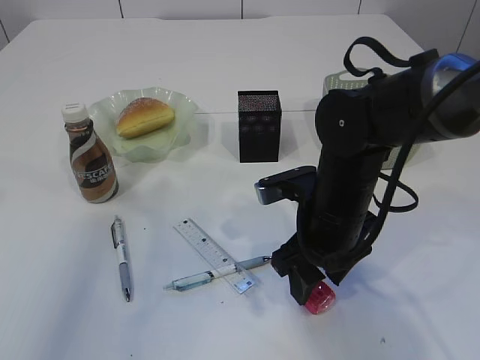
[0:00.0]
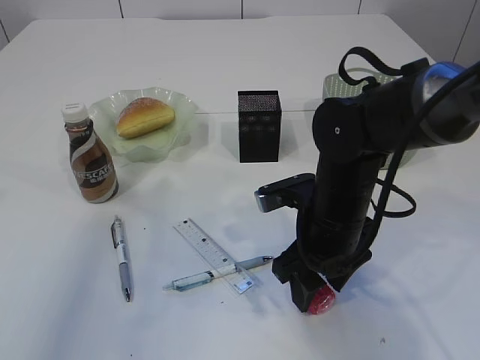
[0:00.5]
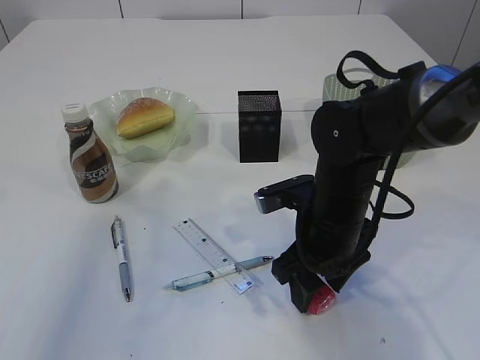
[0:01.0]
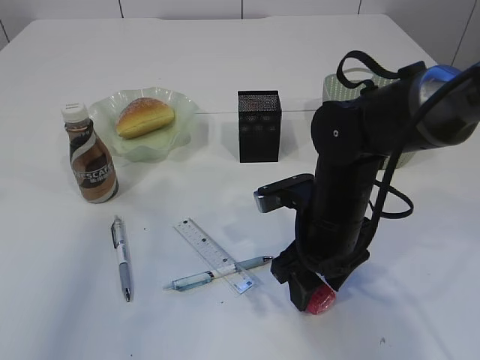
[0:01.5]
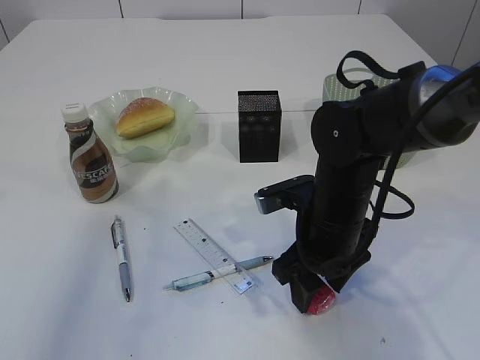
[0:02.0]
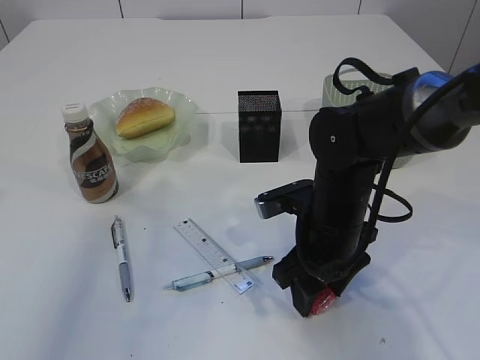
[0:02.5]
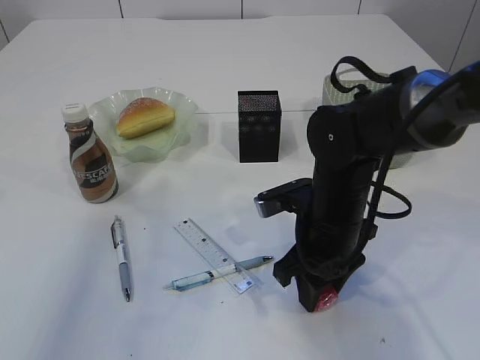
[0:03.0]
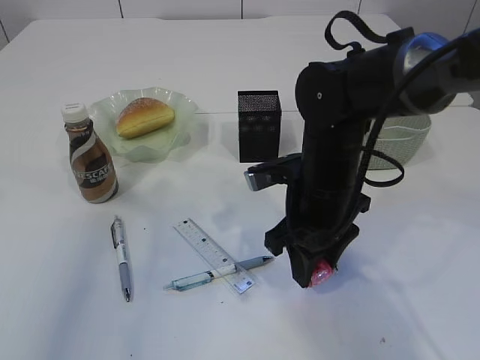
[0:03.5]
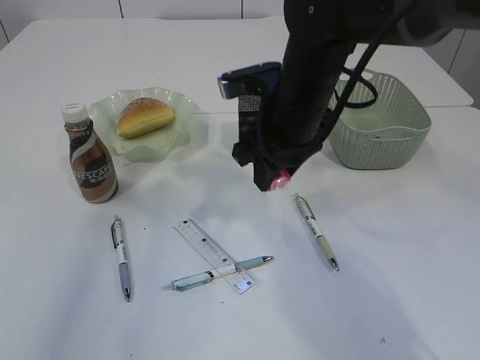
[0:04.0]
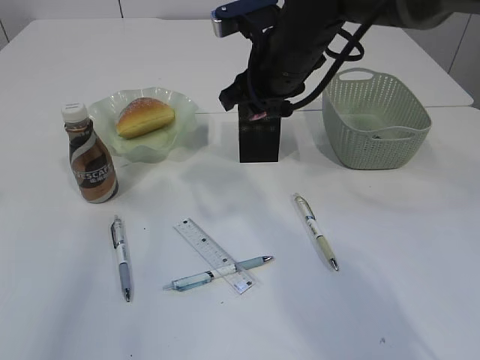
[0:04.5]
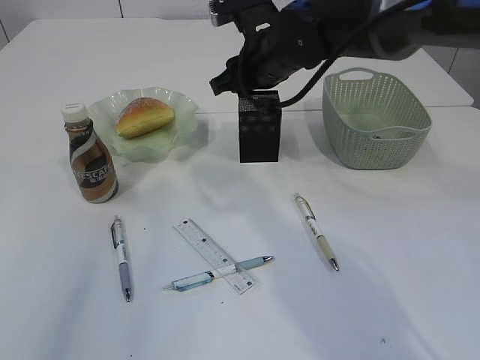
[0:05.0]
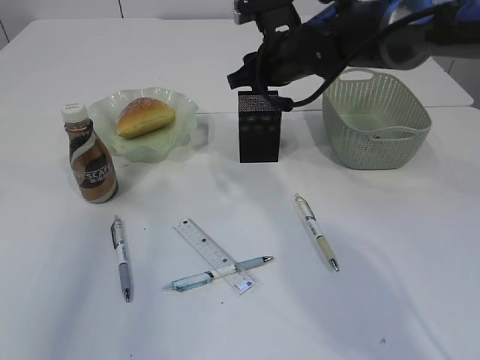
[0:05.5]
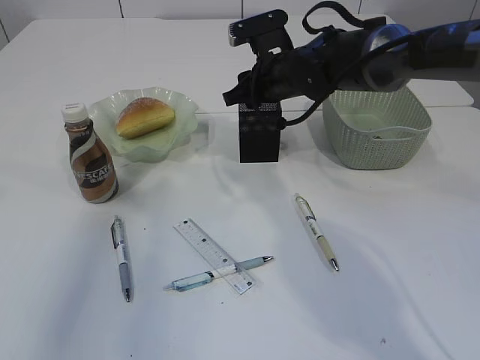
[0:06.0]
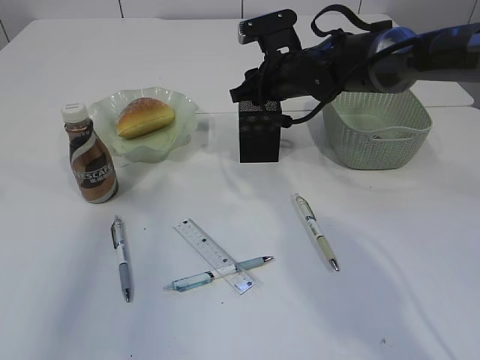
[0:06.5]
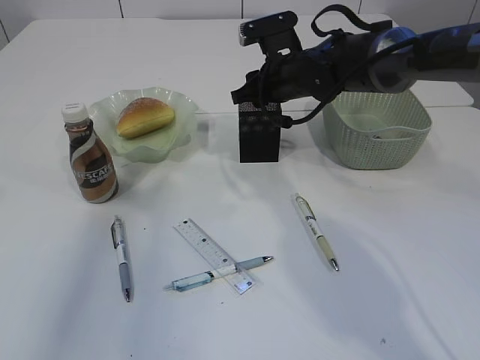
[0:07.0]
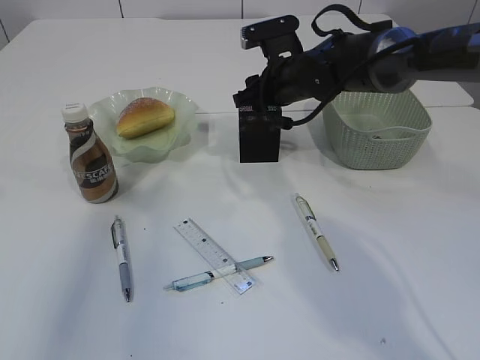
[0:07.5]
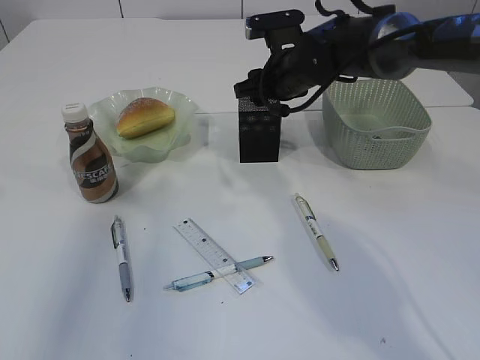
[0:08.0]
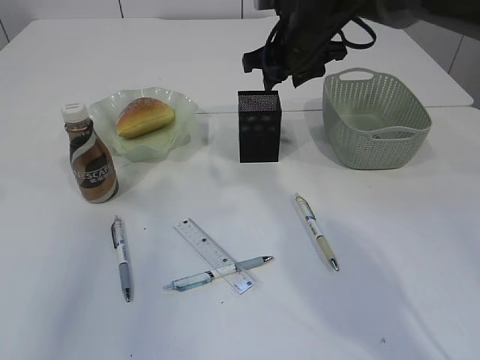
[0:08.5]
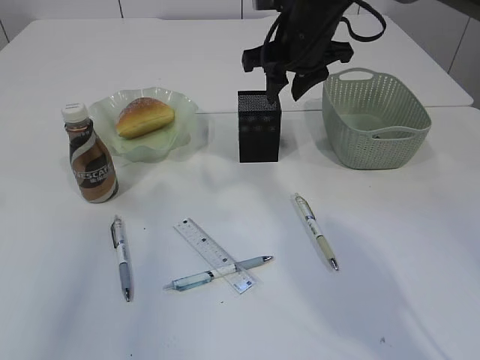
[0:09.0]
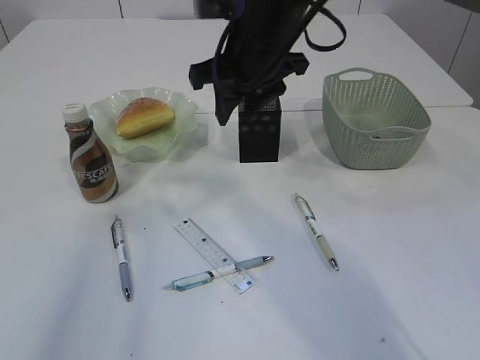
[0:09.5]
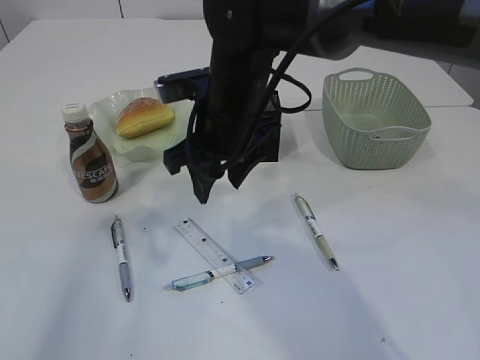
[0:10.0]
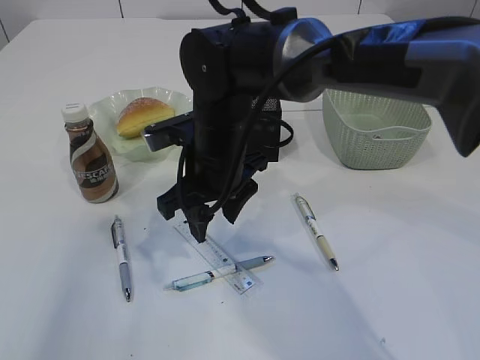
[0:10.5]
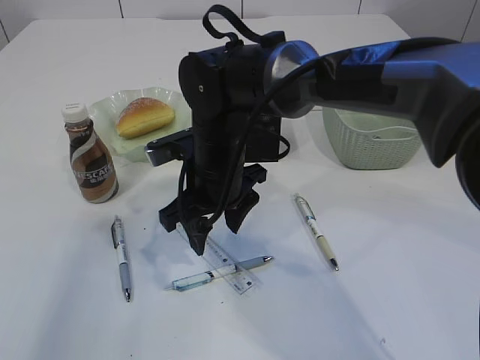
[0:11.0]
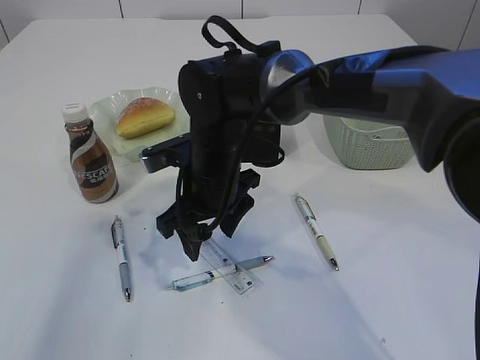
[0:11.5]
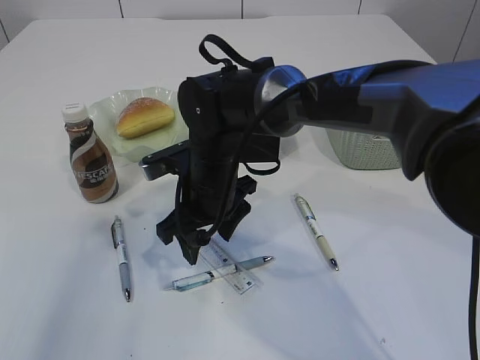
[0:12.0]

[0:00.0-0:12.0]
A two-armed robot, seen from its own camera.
Step, 0:00.0 to 0:03.5: Pick up the blue pencil sharpener.
Step, 0:04.0 to 0:08.5: Place the blue pencil sharpener into the pen holder.
0:00.0 to 0:02.0: The two grippers keep their place.
0:02.0 to 0:04.0: The right gripper heads upward and forward, covering approximately 10 cm, and closes up.
0:04.0 to 0:06.0: The right gripper goes roughly 10 cm forward.
0:06.0 to 0:08.0: The grippers move only a little.
0:08.0 to 0:10.0: The right gripper moves backward and to the left, roughly 15 cm.
0:10.0 to 0:12.0: The right gripper is displaced downward by some 10 cm.

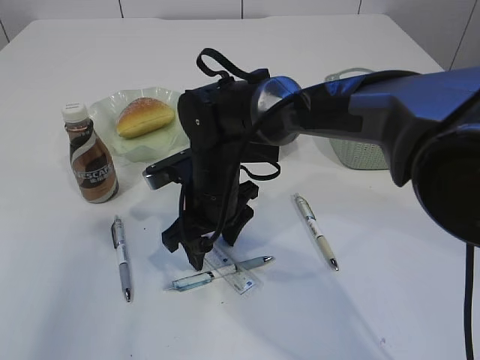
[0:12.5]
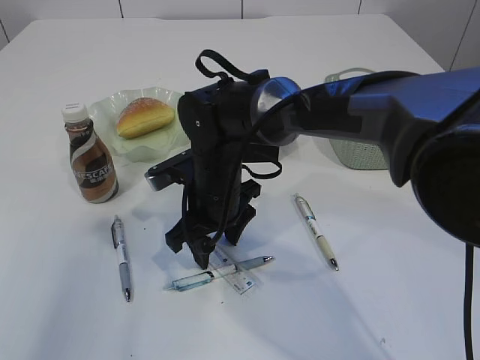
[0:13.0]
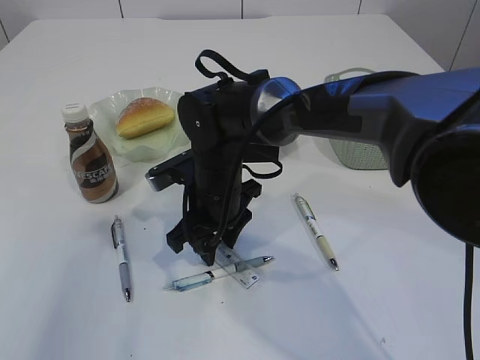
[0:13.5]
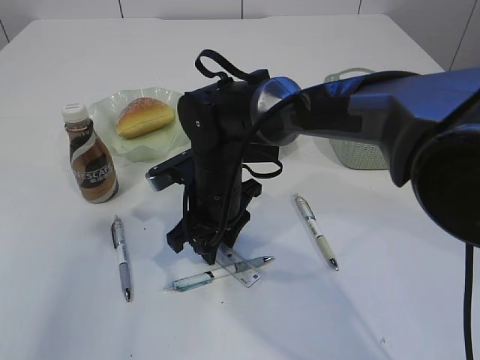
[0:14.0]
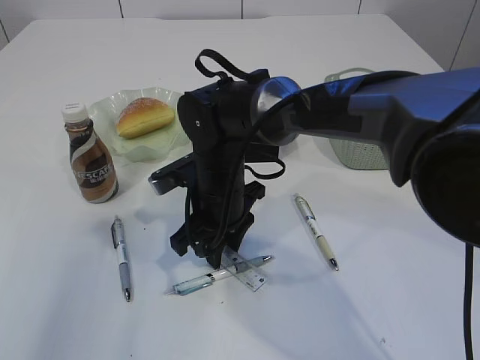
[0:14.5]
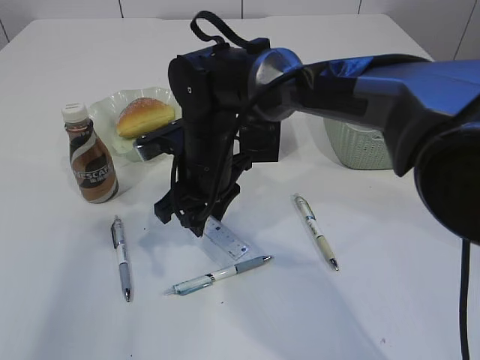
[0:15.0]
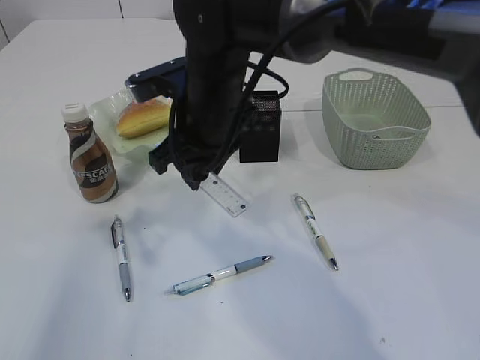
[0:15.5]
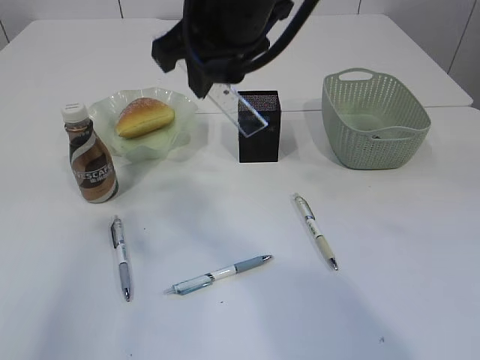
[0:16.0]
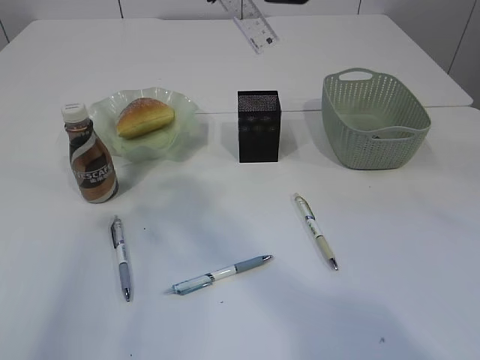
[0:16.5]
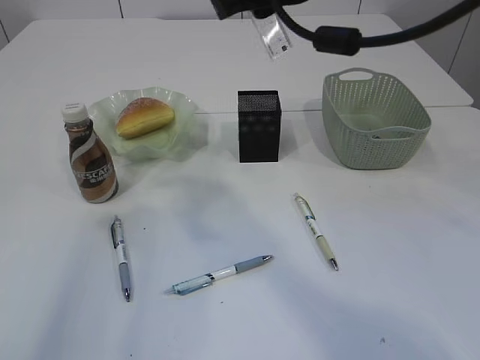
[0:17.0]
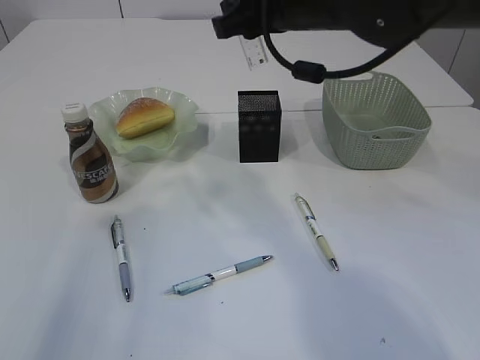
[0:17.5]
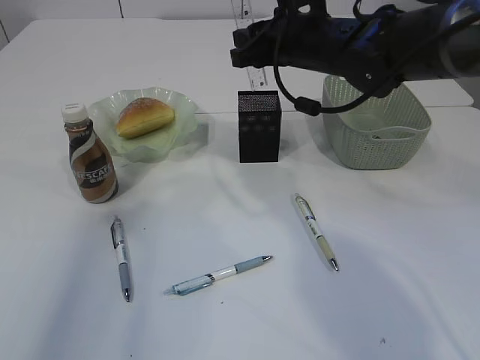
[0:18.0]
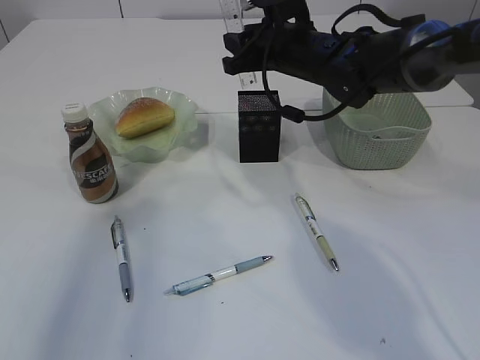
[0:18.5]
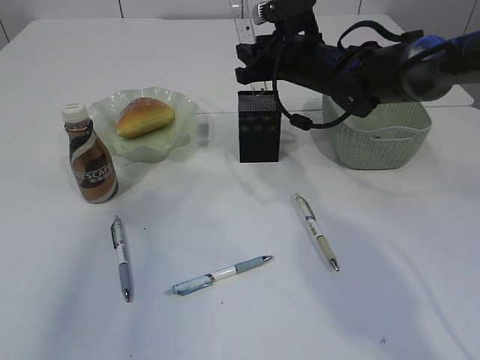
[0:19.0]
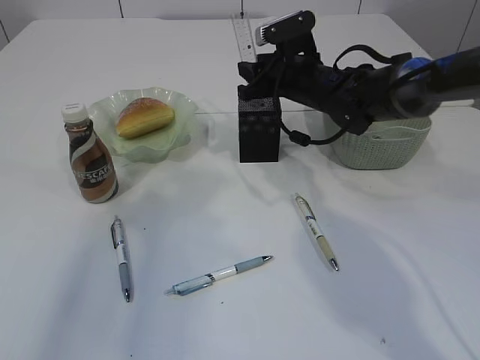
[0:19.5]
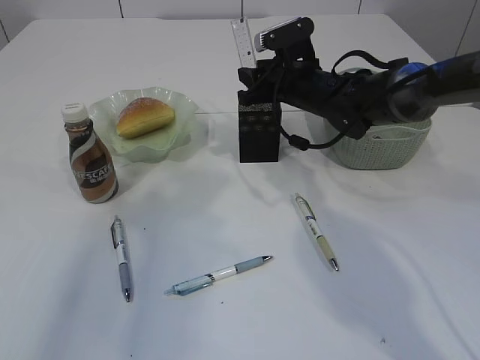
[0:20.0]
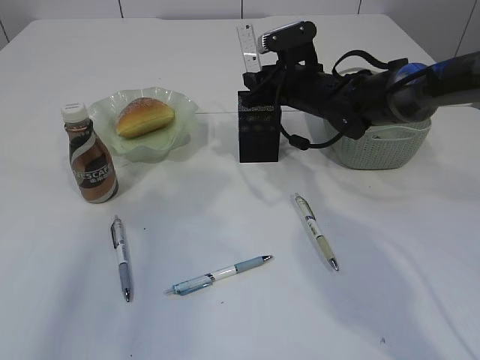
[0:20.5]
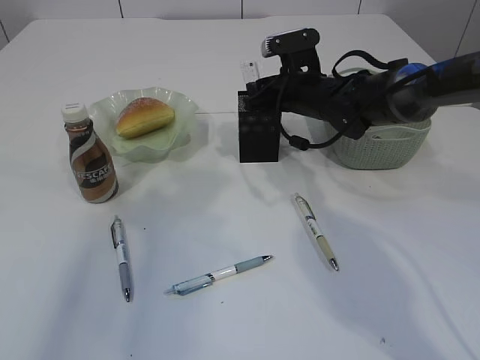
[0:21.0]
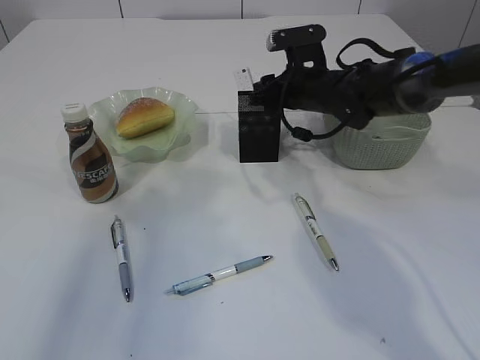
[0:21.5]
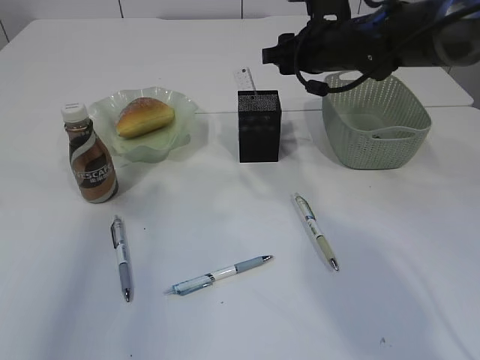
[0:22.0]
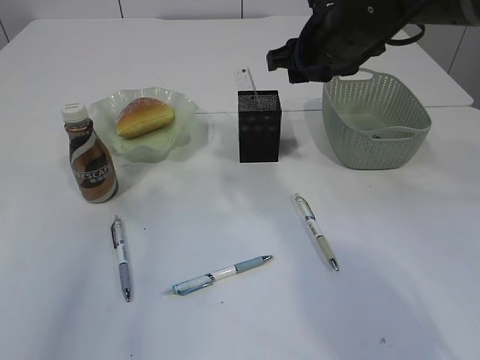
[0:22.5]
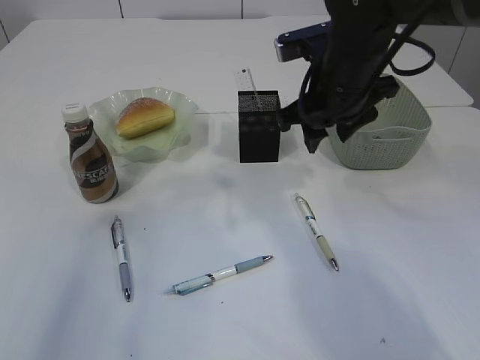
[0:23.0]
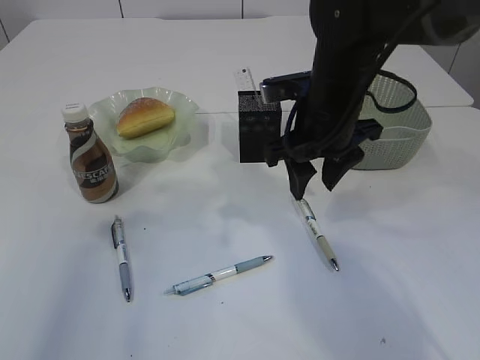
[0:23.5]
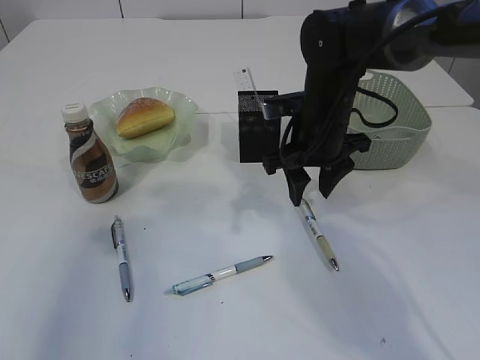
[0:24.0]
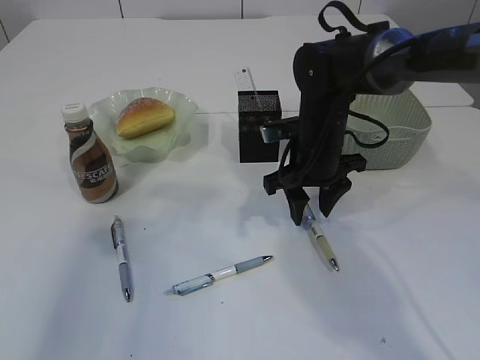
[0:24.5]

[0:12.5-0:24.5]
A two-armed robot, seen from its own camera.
Step, 0:12.5 to 0:15.5: pick up the ruler.
Step, 0:16.0 to 0:22.0: Place the ruler into the pen holder.
0:12.5 to 0:14.5: The right gripper closes up.
0:14.5 to 0:16.5: The right gripper goes roughly 30 cm upward.
0:16.5 to 0:18.5: The right gripper shifts some 25 cm downward and forward.
0:18.5 to 0:20.5: The right gripper heads downward, covering approximately 5 cm.
0:20.5 to 0:22.5: The right gripper heads upward and backward, covering some 15 cm.
0:22.5 to 0:24.5: The right gripper moves downward, about 15 cm.

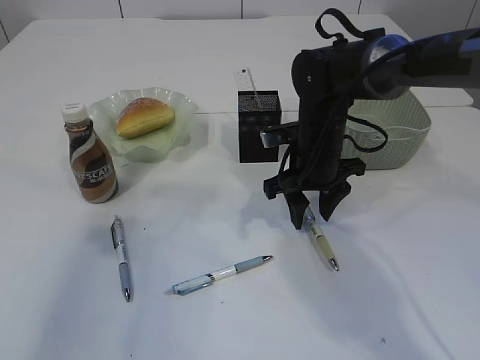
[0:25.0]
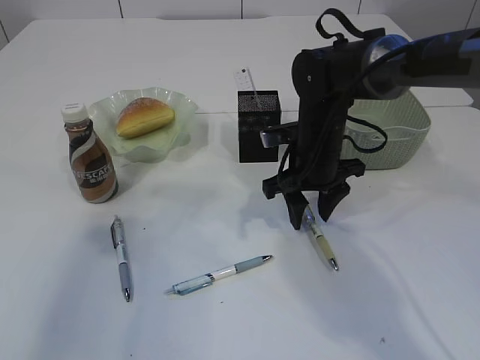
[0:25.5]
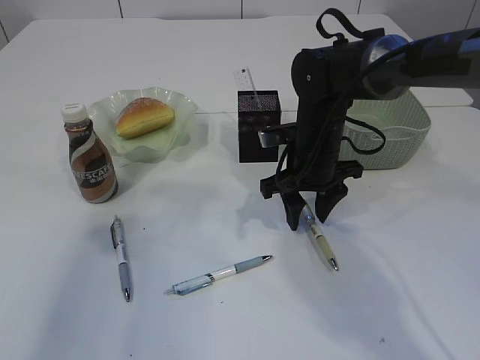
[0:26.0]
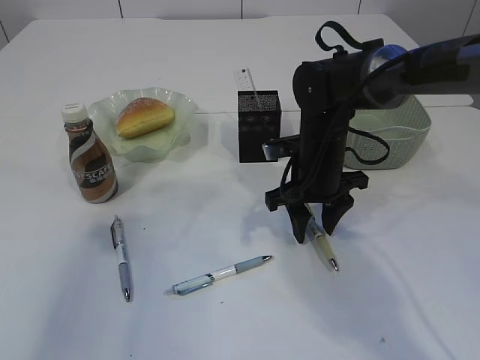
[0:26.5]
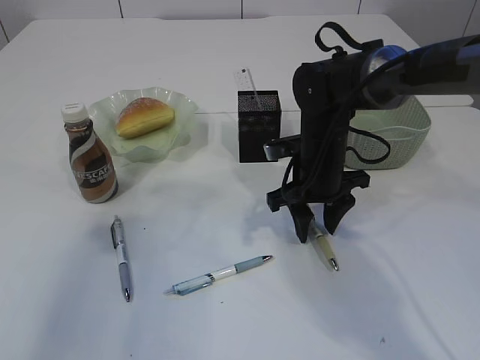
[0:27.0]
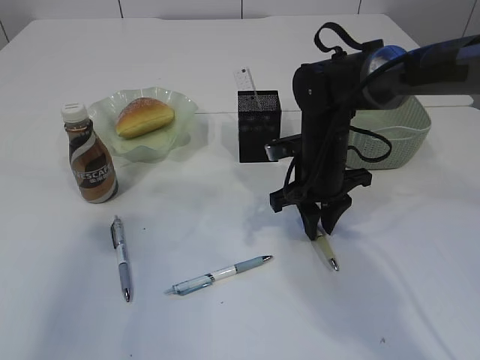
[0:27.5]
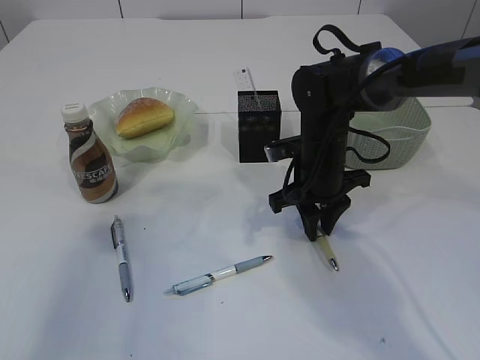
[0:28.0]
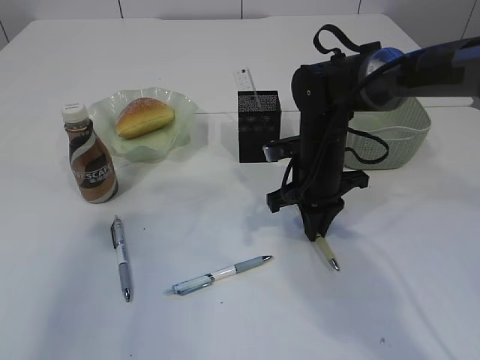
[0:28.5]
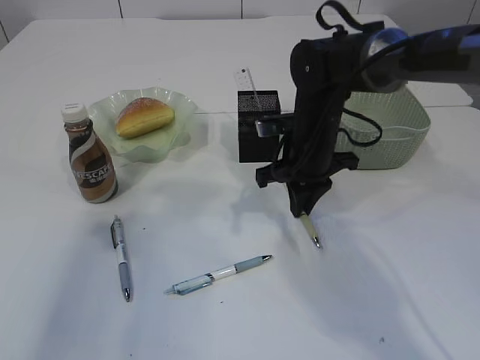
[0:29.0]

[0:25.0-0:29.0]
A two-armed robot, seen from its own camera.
0:25.0 to 0:27.0: The grippers stay close to where they were, moving slightly.
0:27.0 to 0:29.0: The right gripper closes.
